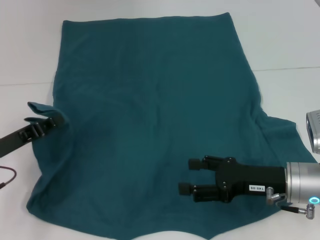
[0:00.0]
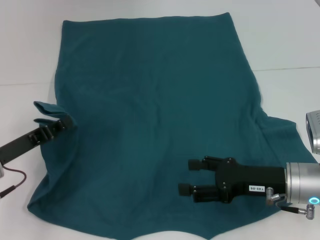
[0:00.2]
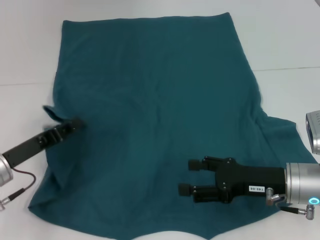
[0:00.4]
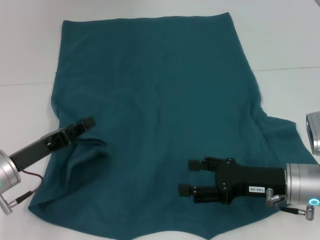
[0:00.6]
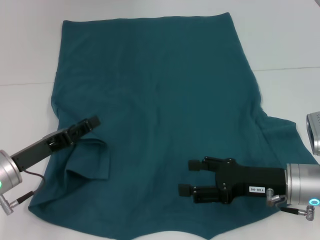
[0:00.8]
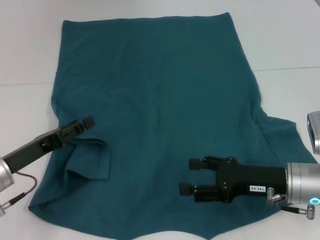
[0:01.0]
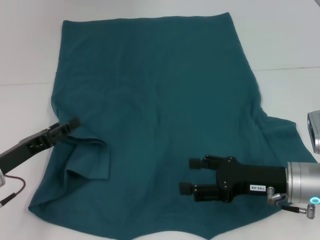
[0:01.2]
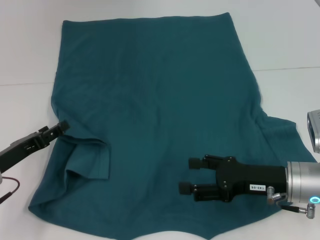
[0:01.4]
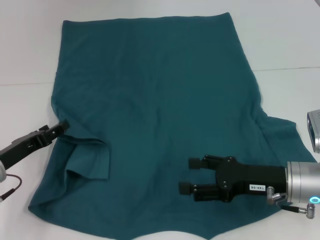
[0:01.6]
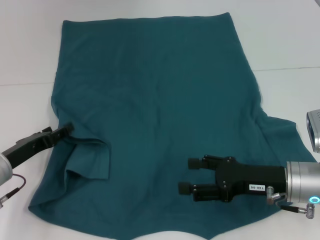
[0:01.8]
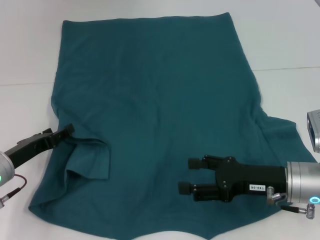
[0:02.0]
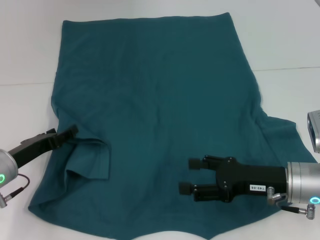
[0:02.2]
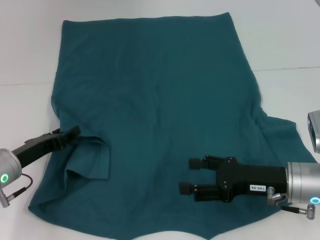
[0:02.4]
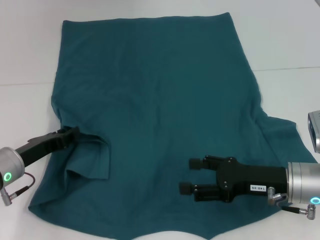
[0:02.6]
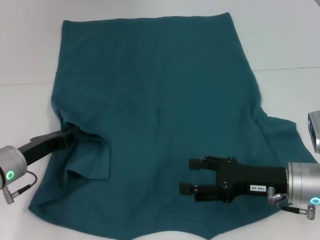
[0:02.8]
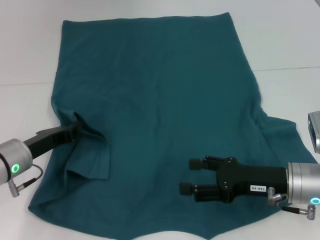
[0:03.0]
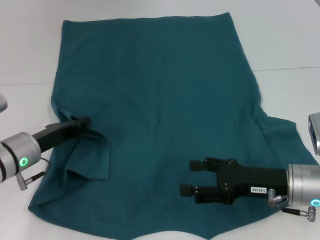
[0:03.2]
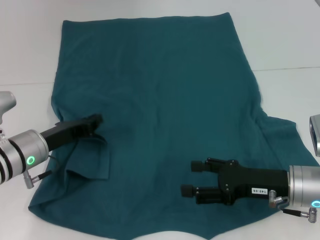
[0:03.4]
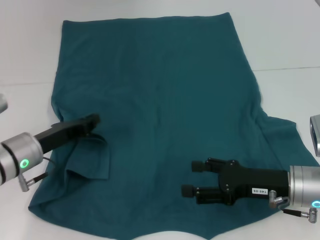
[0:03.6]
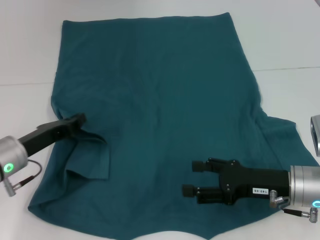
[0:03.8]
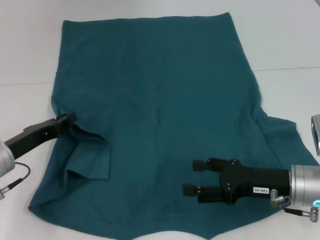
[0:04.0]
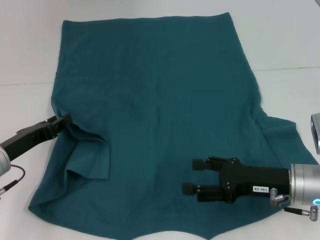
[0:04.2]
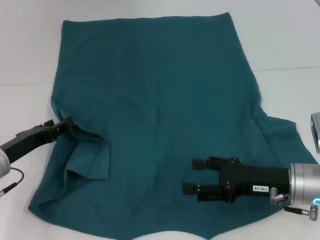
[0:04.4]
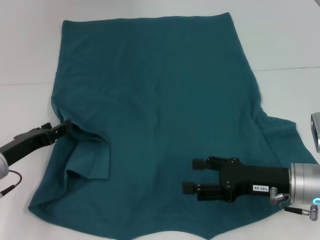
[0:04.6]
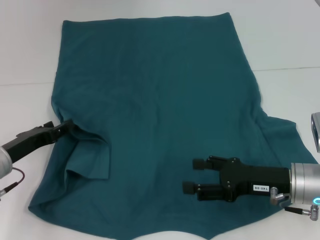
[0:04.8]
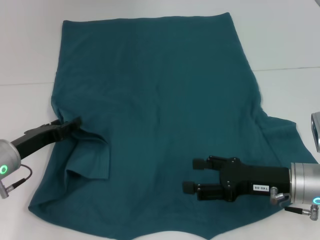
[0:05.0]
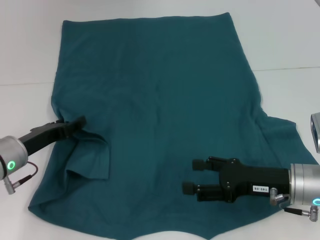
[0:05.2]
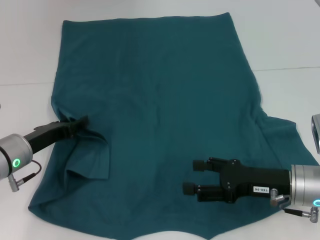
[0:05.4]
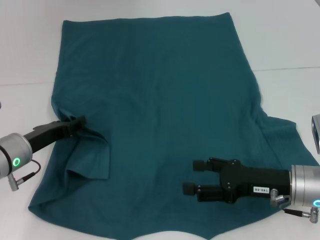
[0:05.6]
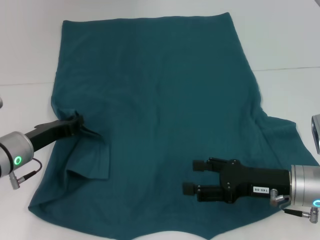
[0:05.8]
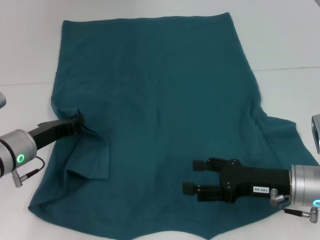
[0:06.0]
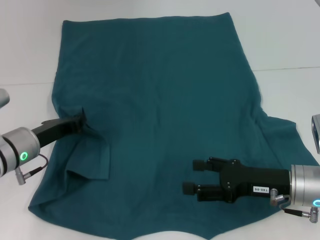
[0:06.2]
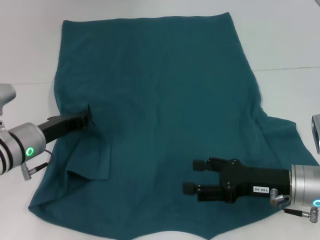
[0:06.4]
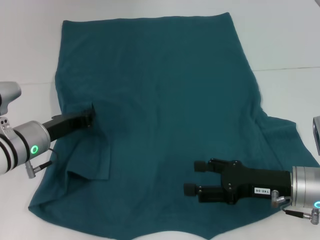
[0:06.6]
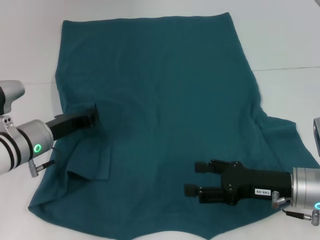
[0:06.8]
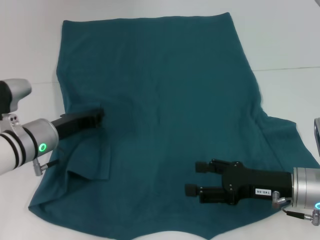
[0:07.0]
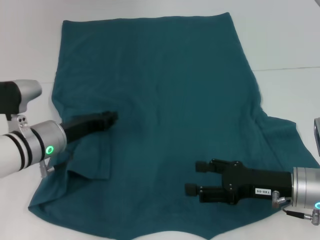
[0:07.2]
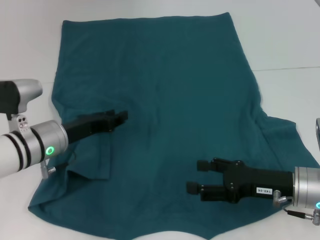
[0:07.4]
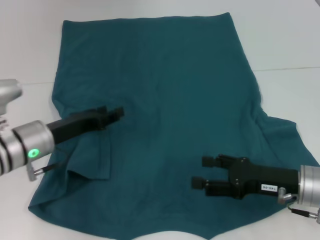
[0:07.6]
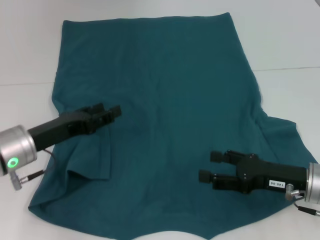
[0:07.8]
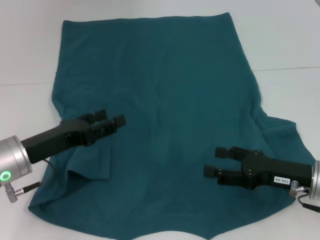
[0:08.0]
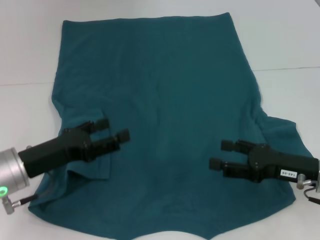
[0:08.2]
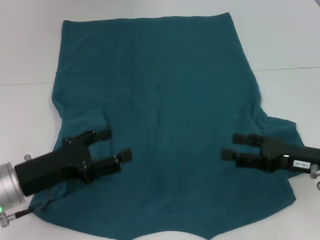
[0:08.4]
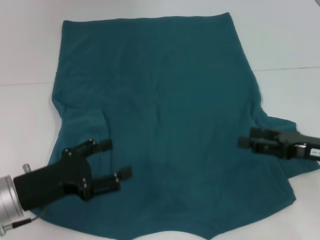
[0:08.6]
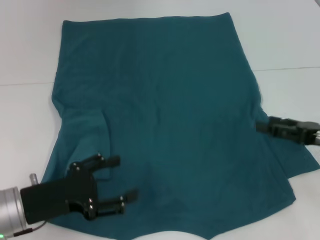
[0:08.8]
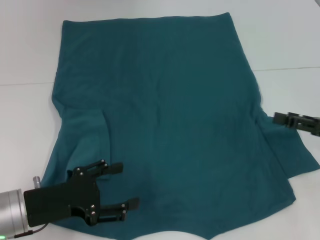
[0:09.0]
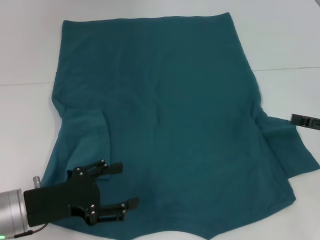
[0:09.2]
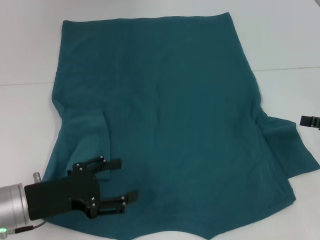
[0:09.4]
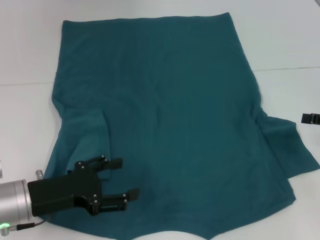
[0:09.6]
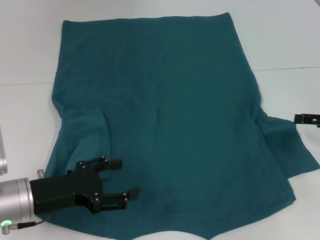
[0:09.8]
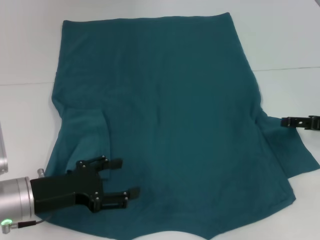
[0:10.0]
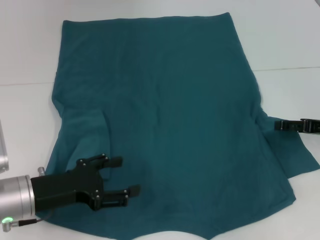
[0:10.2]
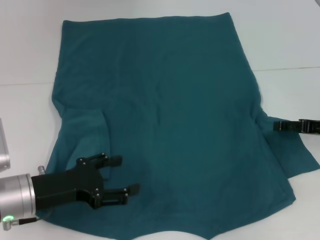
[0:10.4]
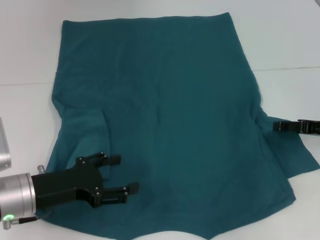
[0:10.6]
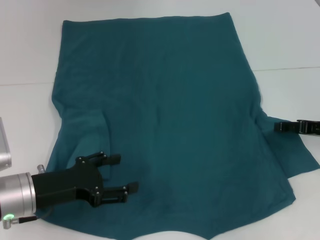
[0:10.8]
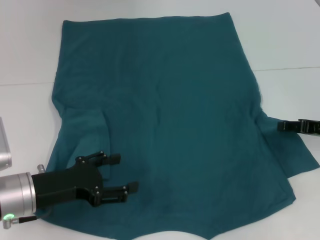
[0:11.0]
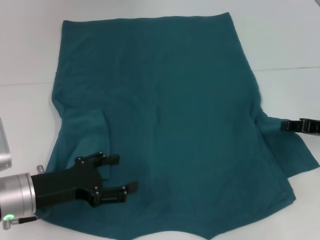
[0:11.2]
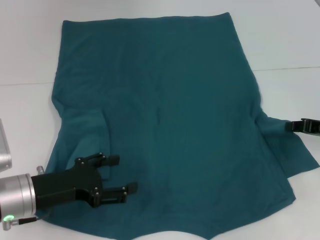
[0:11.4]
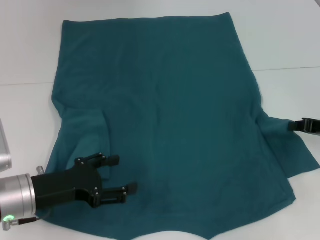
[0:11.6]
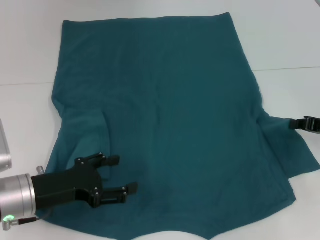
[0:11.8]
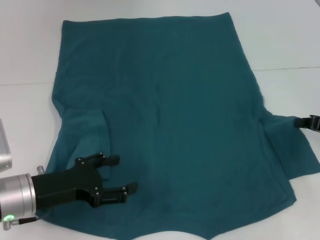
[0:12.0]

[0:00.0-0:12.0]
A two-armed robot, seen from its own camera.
Step, 0:00.0 to 0:07.2: Fold the bottom left sleeve with your left hand.
0:00.0 to 0:01.6: The left gripper opens.
0:01.6 to 0:03.0: The left gripper closes up.
0:03.0 to 0:06.0: There are only small adjustments of the grippers.
0:06.0 to 0:07.6: The grippers stay close to where they were, moving slightly.
0:07.6 to 0:09.0: The right gripper heads to the right and upward, covering roughly 10 cm; the left gripper is displaced backward by some 10 cm, and opens up.
0:09.0 to 0:10.4: The right gripper goes about 5 cm forward.
0:10.4 to 0:12.0: The right gripper closes its fingers.

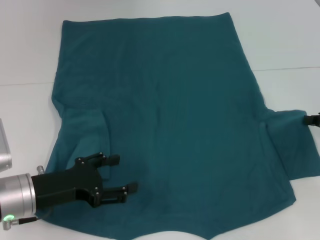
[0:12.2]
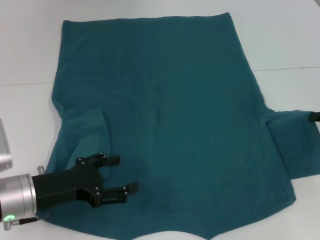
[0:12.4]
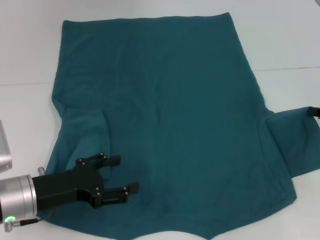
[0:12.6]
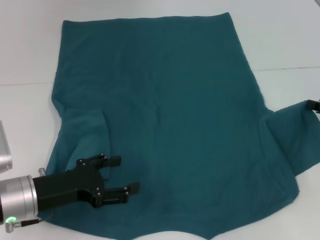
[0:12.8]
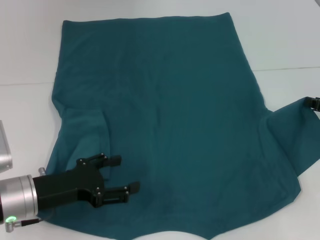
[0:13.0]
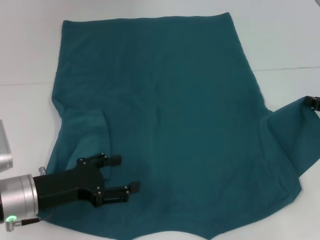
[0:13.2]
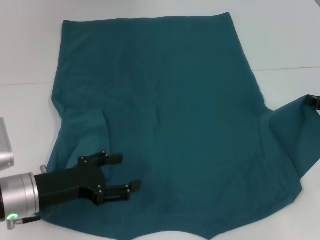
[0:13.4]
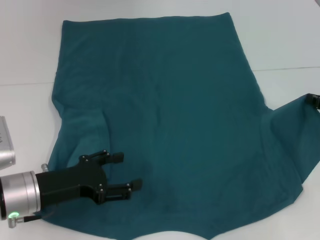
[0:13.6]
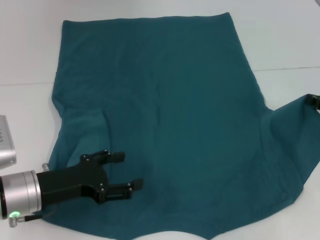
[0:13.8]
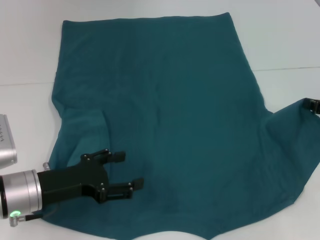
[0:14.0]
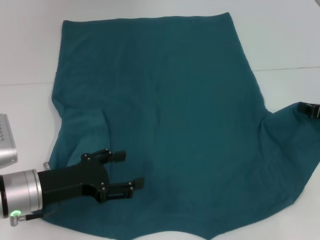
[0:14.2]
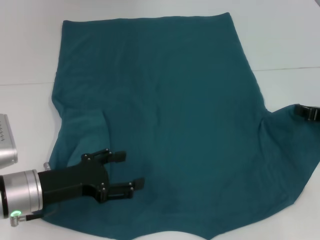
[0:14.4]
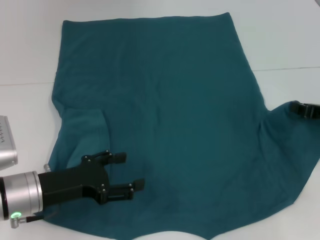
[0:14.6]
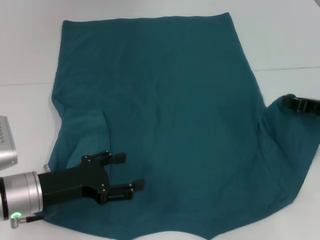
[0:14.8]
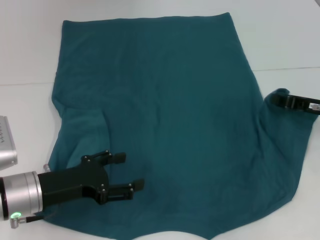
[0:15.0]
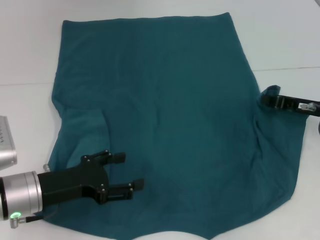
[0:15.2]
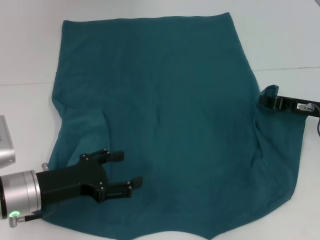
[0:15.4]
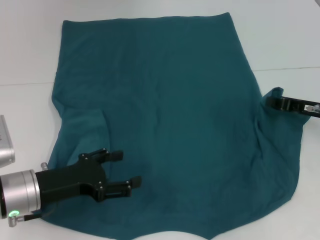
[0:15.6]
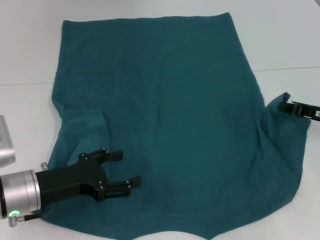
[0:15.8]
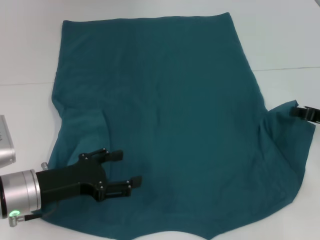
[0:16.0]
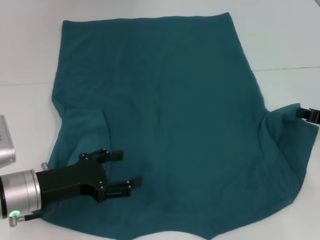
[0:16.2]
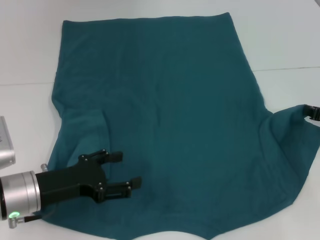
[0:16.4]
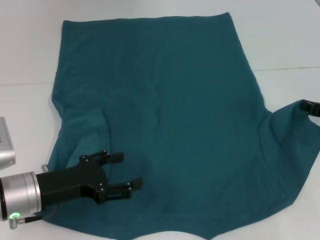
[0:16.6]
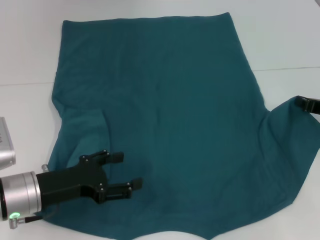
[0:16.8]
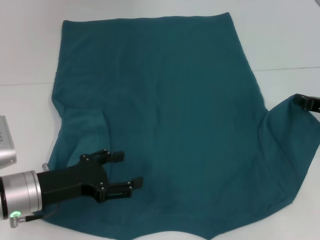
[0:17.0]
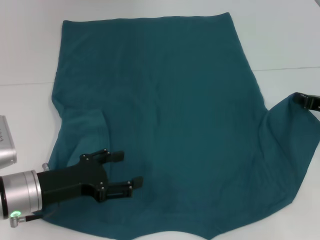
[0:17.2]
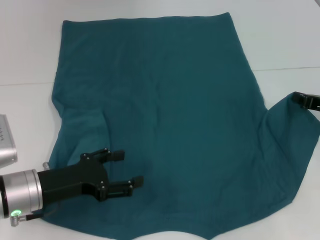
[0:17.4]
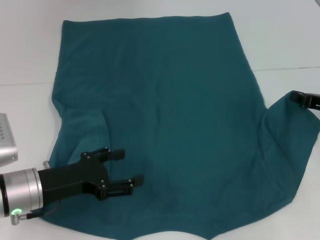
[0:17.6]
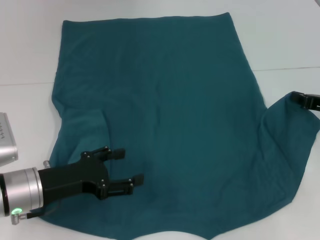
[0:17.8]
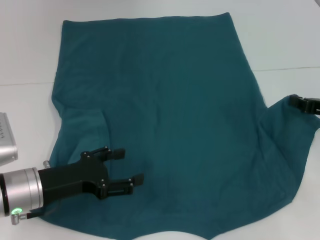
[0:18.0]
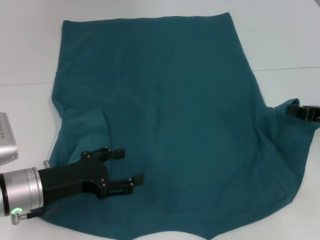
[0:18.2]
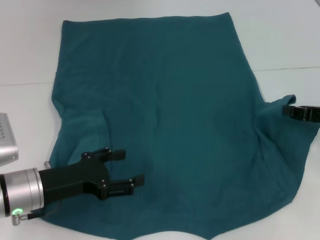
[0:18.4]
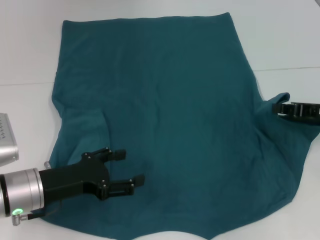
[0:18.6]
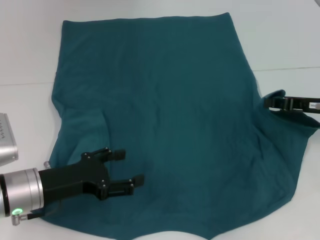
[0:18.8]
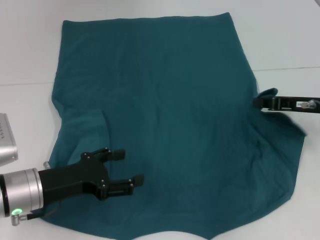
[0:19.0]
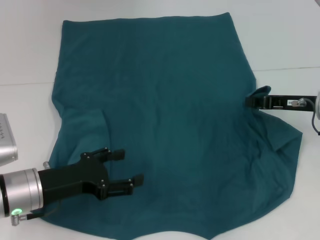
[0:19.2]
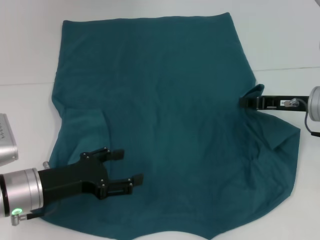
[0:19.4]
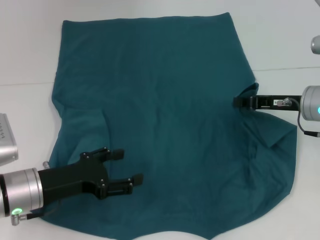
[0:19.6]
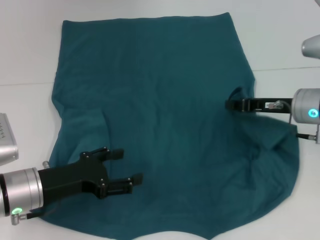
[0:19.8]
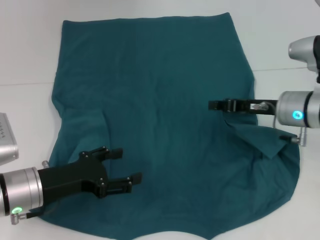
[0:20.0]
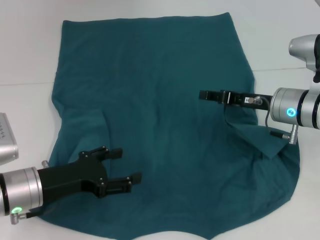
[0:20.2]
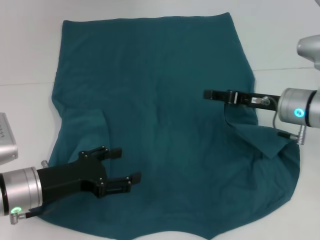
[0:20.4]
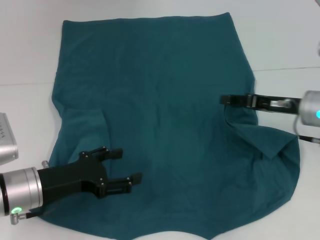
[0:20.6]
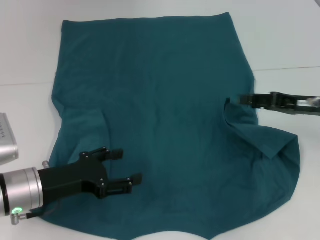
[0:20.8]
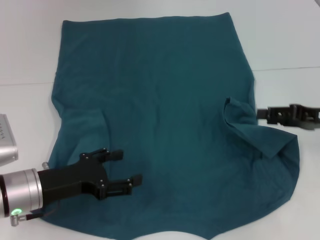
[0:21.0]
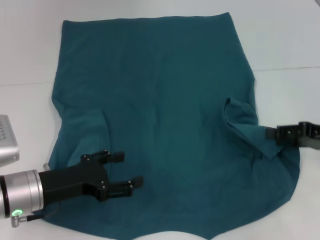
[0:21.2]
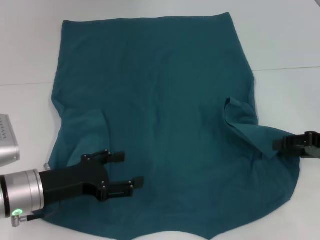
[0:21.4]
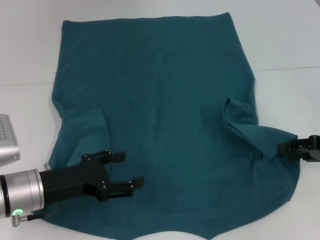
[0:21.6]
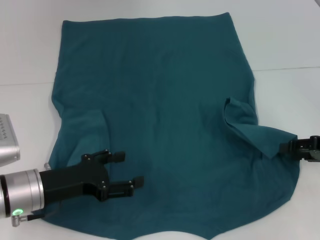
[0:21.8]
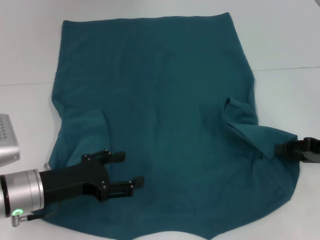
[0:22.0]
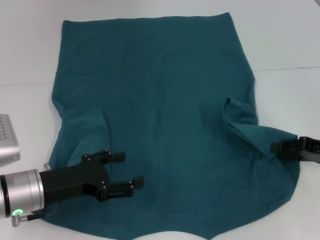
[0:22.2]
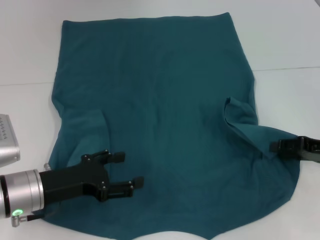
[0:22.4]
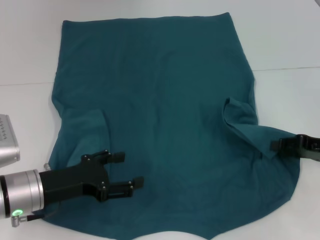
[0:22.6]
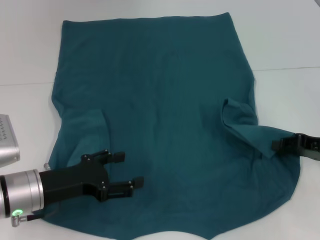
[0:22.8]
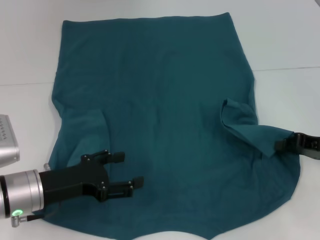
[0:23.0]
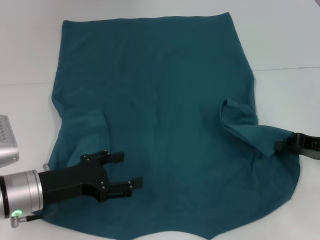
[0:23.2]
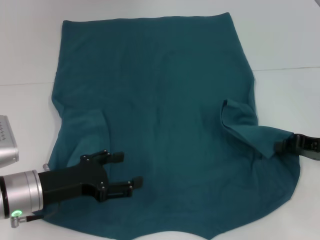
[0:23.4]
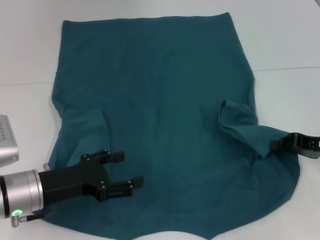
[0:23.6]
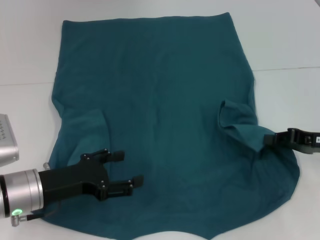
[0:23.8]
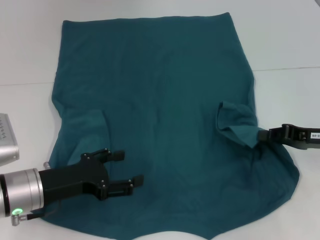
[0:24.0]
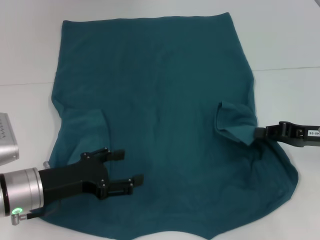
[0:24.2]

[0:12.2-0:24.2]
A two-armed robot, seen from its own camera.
0:12.2 to 0:13.8: The grippers stay close to where they were, moving slightly.
0:13.8 to 0:15.2: The right gripper travels to the left by about 5 cm.
0:15.2 to 0:16.6: The right gripper moves roughly 5 cm.
0:16.6 to 0:18.2: There are only small adjustments of the grippers.
0:18.2 to 0:19.8: The right gripper heads to the left, covering roughly 10 cm.
0:19.8 to 0:21.2: The right gripper heads to the right and backward, covering about 10 cm, and opens its fingers.
0:21.2 to 0:22.6: The grippers stay close to where they were, moving slightly.
0:22.6 to 0:24.2: The right gripper closes up.
